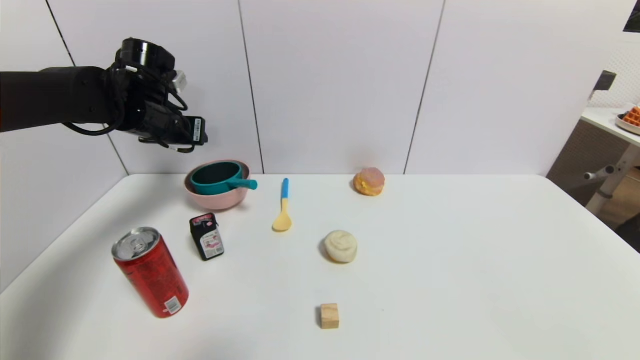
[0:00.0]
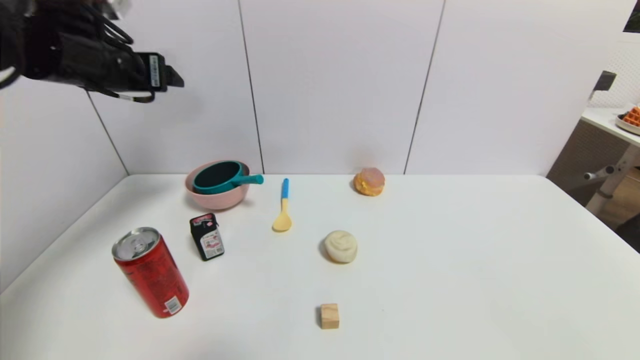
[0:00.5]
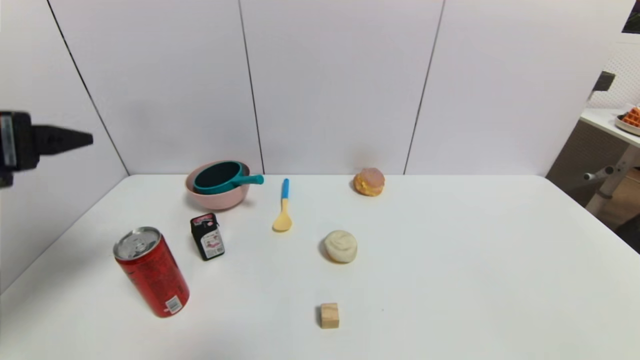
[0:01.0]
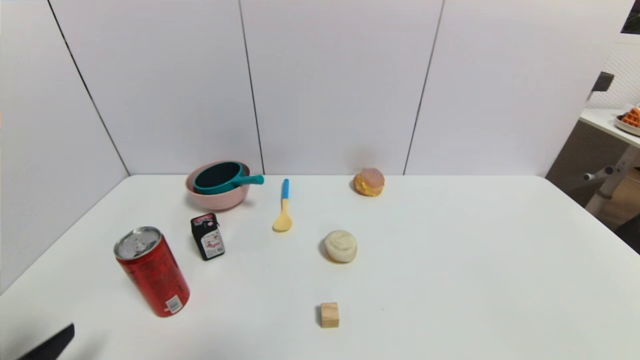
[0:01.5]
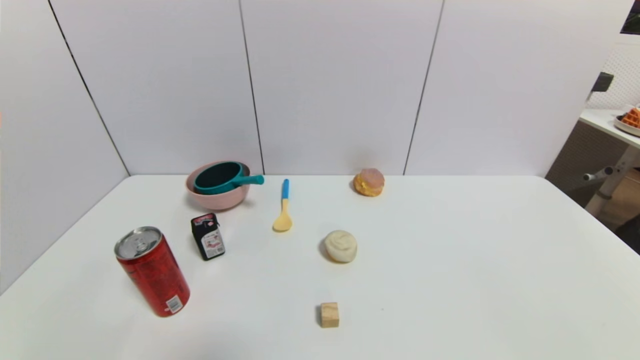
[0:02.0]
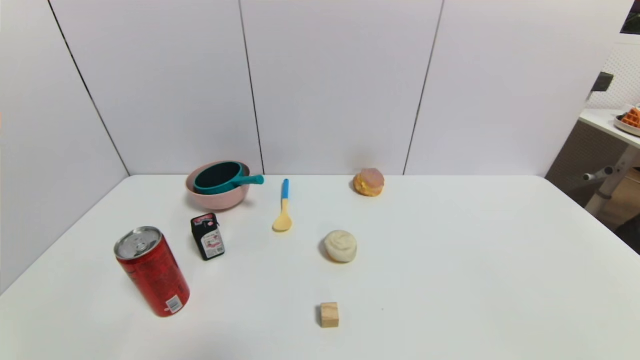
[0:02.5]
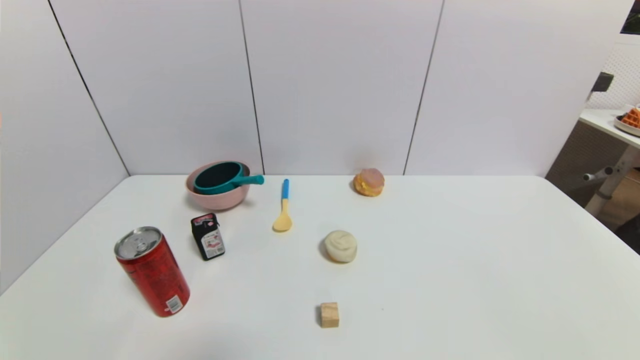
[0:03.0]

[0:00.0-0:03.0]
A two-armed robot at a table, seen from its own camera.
Task of the whole recording: use a gripper to pick the target object and place on the pink bowl.
0:00.0 to 0:01.5: The left gripper moves backward, approximately 35 cm, and opens.
0:01.5 to 0:03.0: The left gripper goes roughly 10 cm downward and backward.
